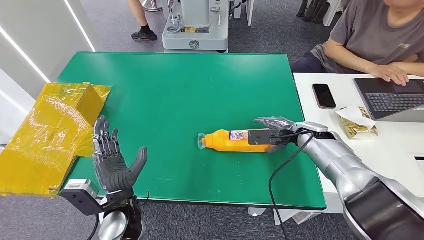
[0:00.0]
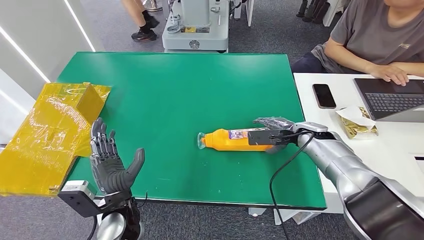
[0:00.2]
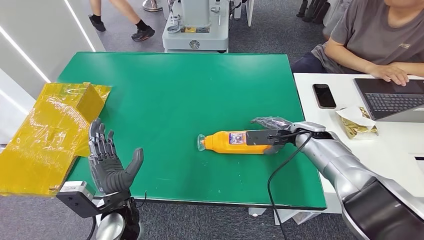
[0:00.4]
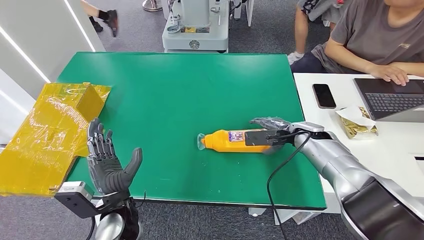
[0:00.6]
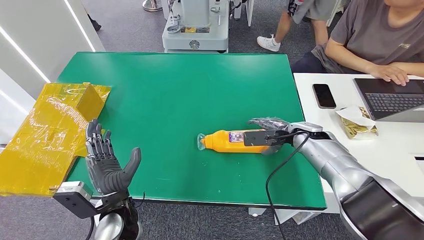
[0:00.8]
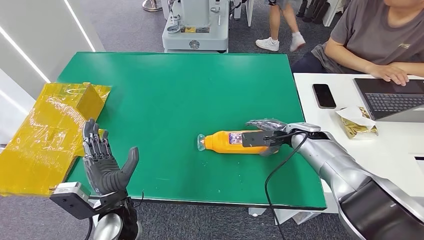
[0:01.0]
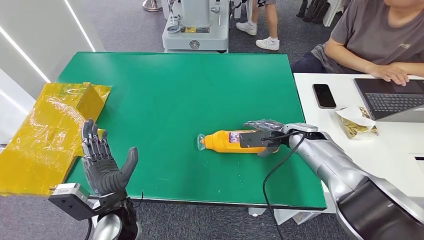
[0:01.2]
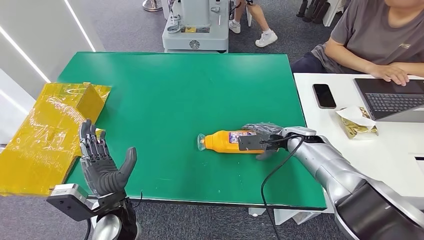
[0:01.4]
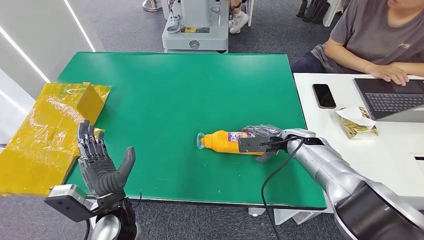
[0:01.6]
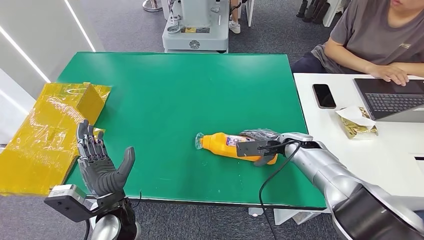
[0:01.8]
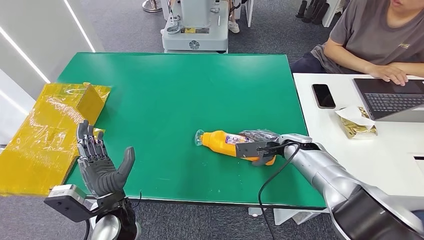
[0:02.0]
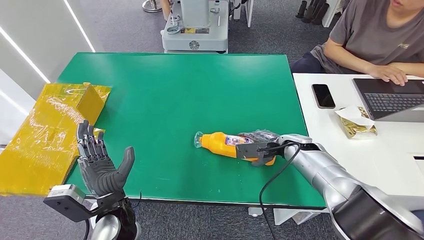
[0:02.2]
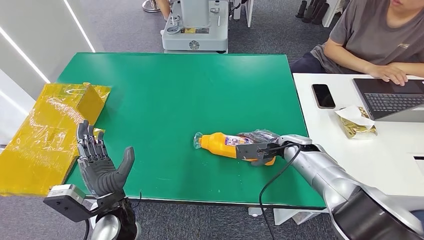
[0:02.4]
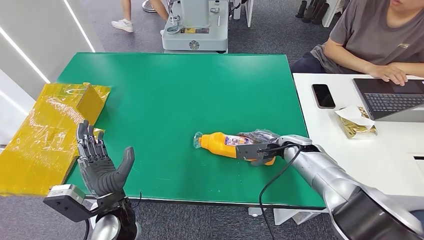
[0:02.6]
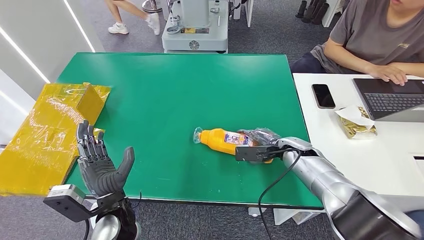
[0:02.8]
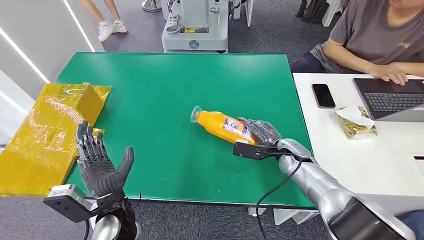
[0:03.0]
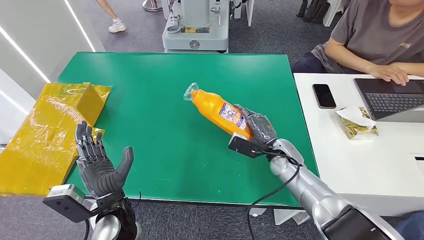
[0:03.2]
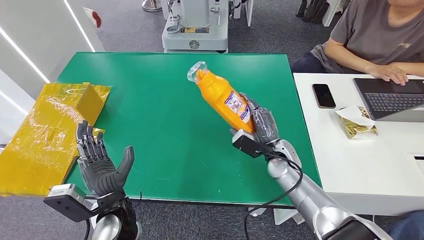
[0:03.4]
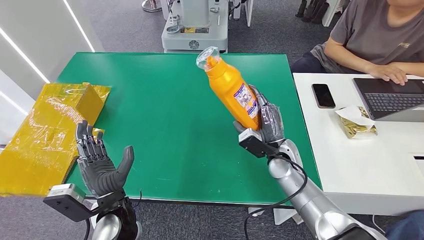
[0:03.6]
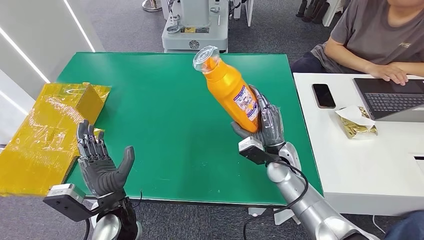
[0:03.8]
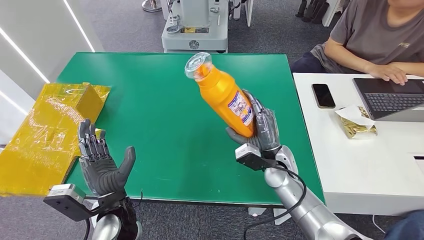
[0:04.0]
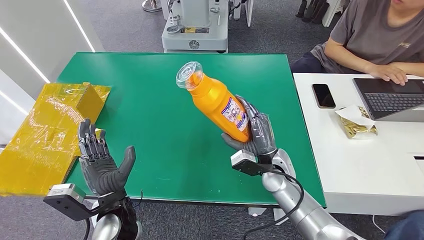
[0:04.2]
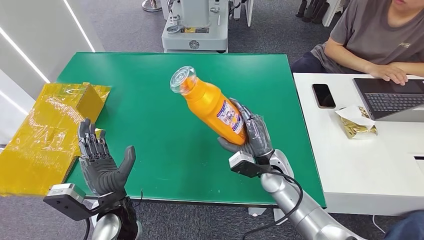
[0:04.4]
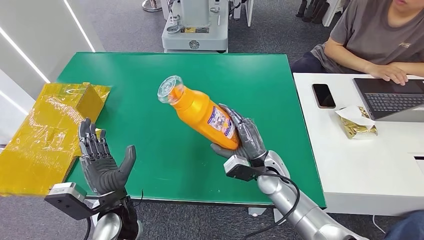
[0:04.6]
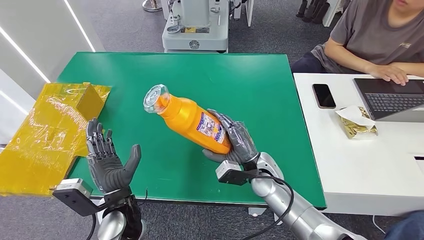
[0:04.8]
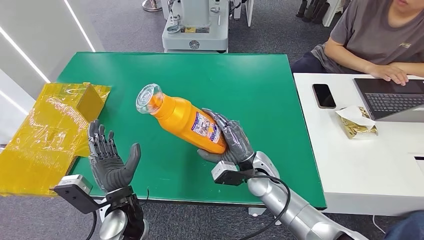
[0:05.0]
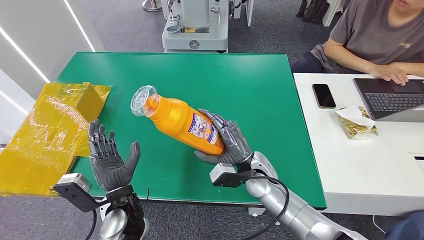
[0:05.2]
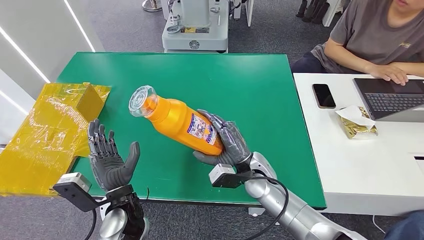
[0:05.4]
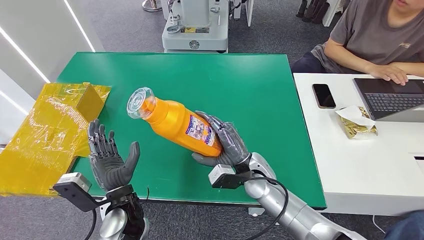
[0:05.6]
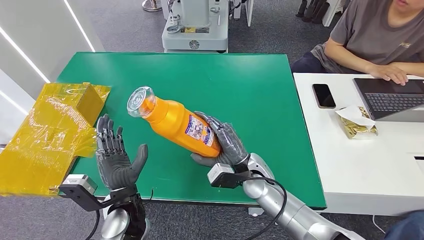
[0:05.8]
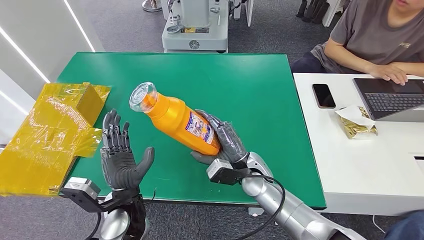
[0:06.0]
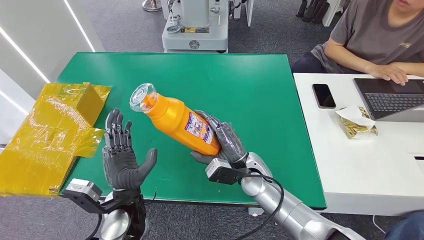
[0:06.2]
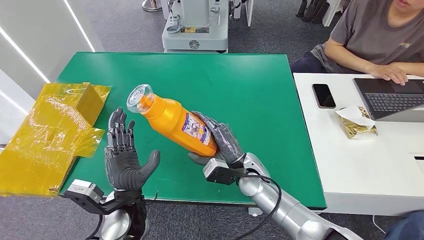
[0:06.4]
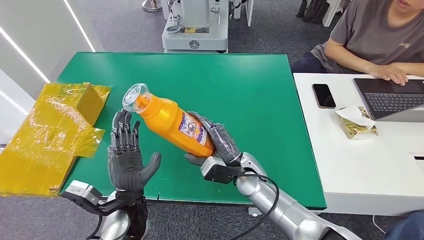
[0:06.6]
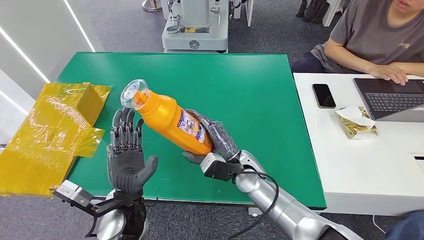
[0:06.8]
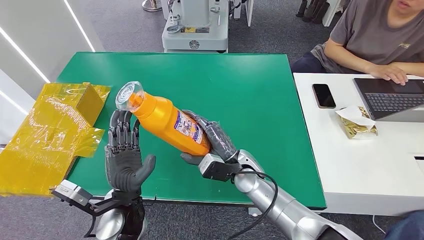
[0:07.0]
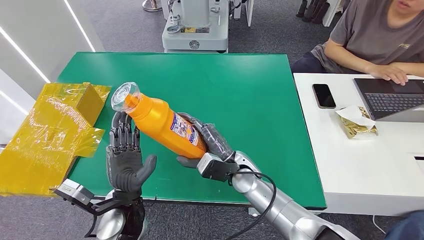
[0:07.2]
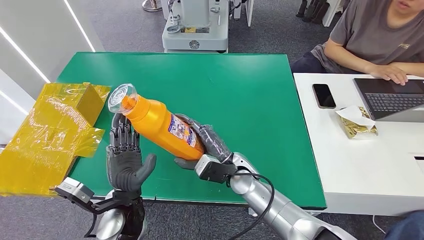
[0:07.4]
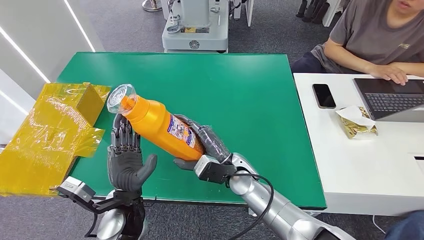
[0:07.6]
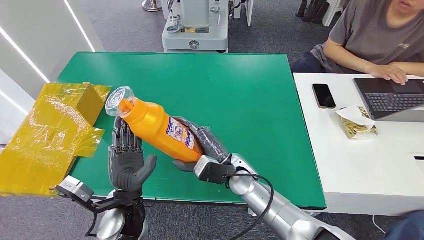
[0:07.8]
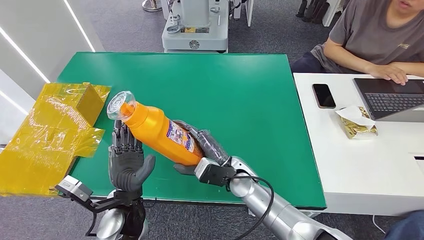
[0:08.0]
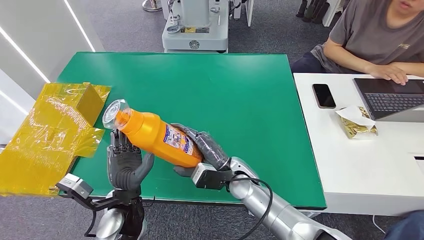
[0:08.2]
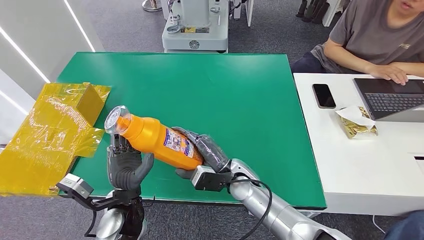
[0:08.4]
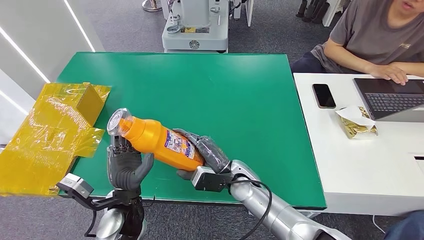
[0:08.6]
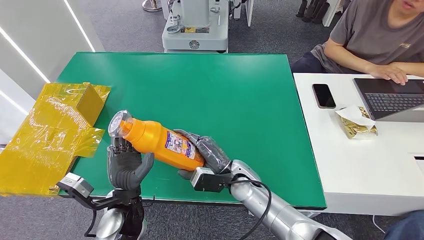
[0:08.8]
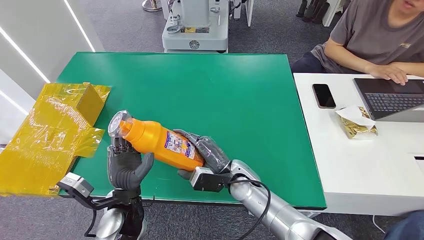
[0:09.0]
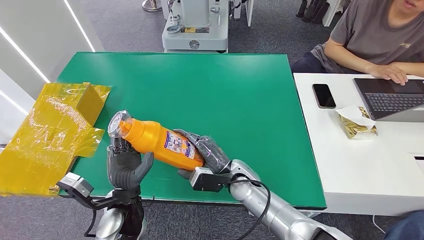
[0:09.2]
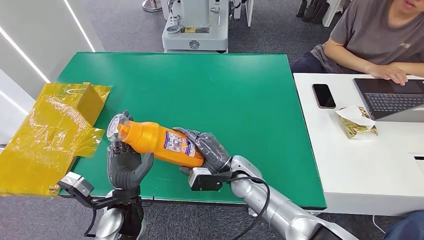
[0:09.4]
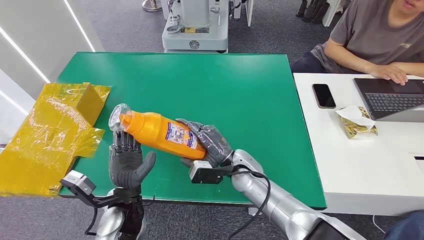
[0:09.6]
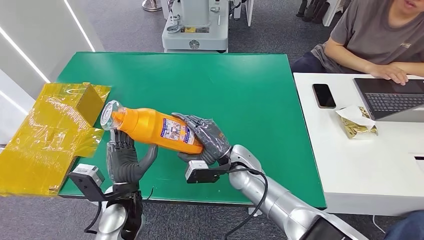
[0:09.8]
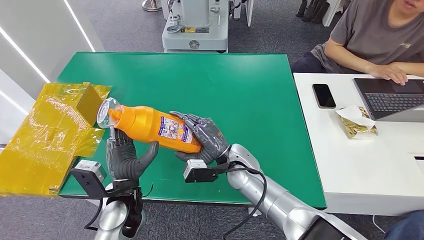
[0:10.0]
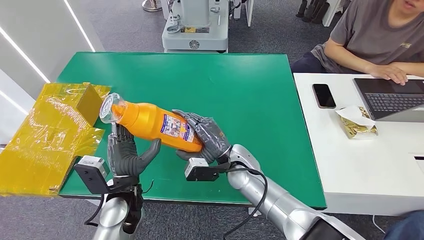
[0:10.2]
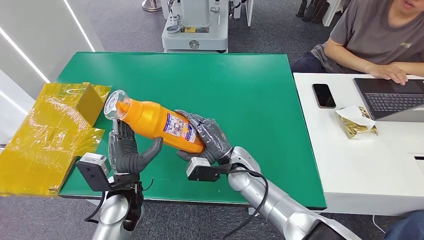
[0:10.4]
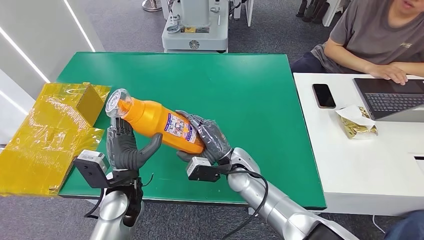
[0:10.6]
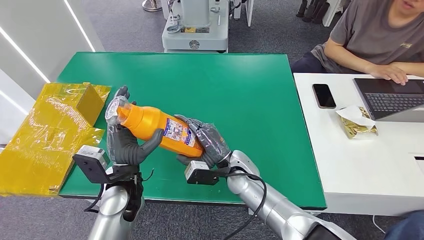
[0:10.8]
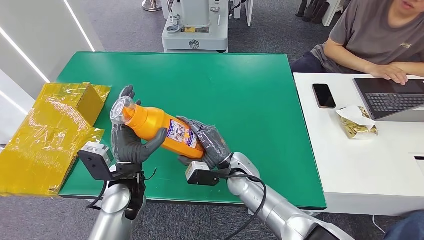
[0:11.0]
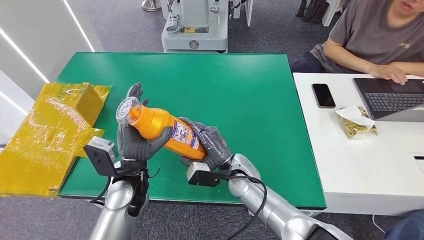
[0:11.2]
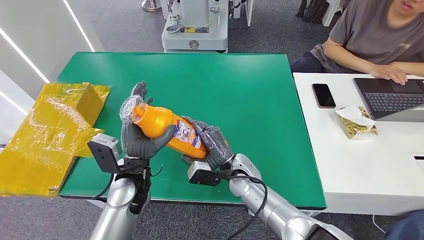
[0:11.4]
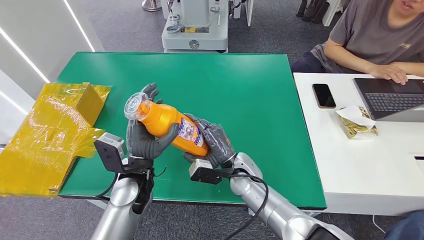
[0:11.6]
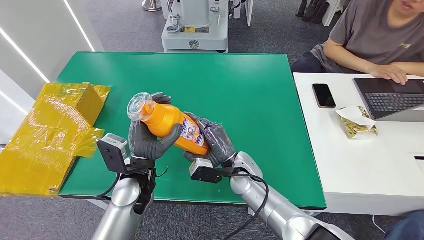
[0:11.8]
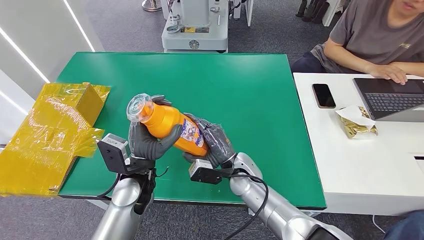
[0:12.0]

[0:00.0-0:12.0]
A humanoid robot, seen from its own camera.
Step, 0:00.0 to 0:04.0: Pick up the bottle from the table.
0:00.0 to 0:01.6: The hands move only a little.
0:01.6 to 0:03.0: The right hand ends up about 5 cm from where it was.
0:03.0 to 0:04.4: The right hand moves to the left and backward, some 10 cm.
0:04.4 to 0:06.0: The right hand travels to the left by approximately 5 cm.
0:06.0 to 0:10.4: The hands make only small movements.
0:10.4 to 0:12.0: There are only small adjustments of the hands.

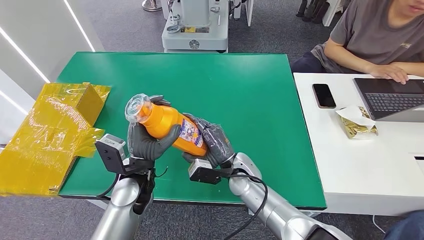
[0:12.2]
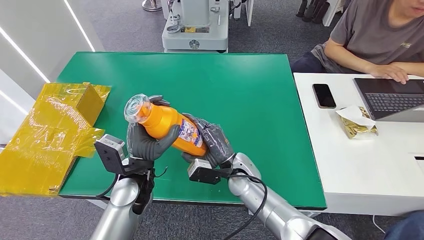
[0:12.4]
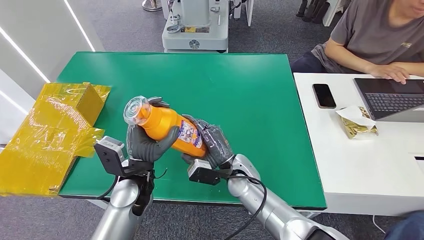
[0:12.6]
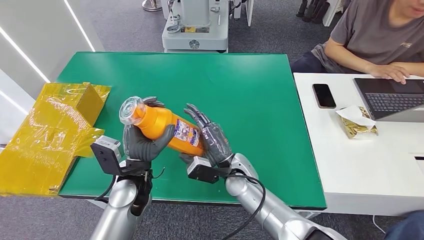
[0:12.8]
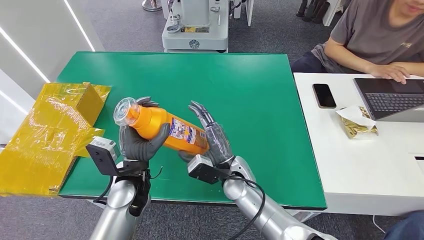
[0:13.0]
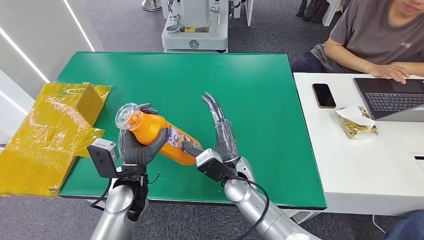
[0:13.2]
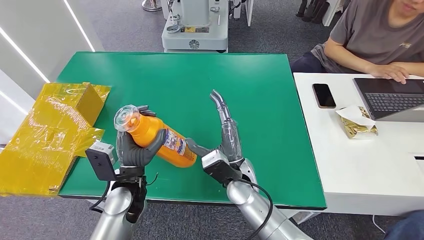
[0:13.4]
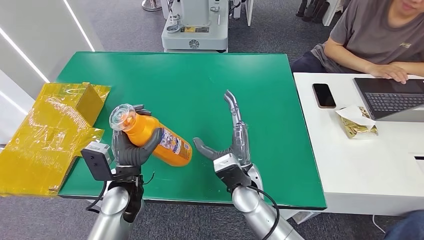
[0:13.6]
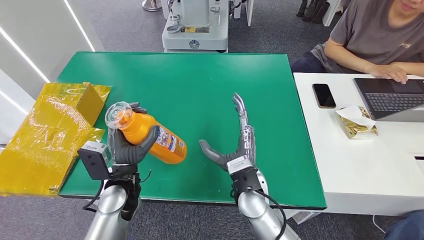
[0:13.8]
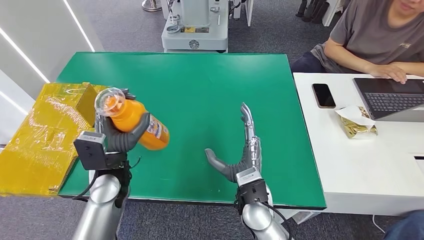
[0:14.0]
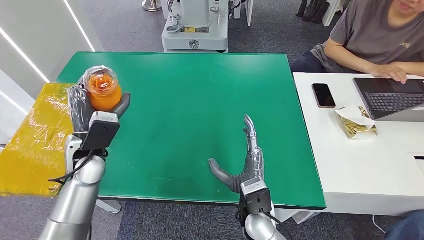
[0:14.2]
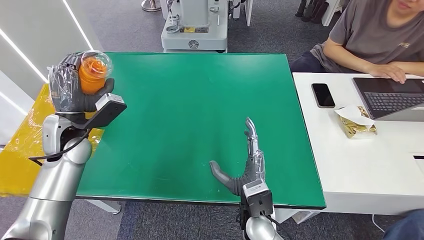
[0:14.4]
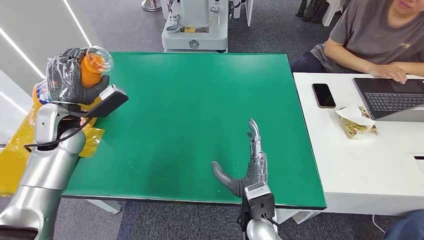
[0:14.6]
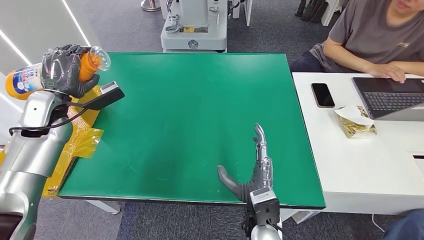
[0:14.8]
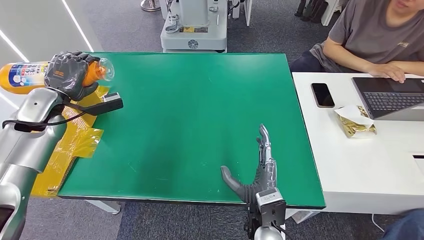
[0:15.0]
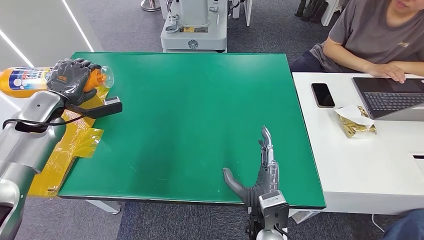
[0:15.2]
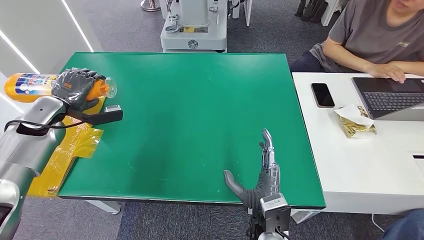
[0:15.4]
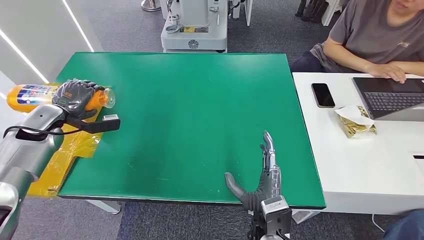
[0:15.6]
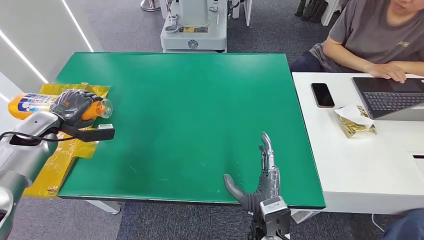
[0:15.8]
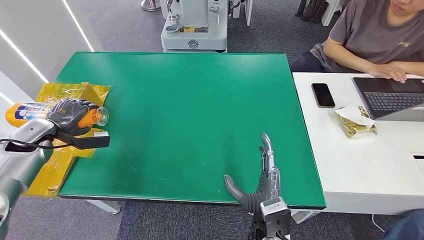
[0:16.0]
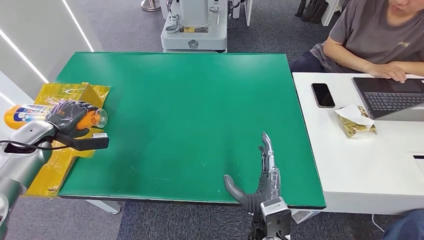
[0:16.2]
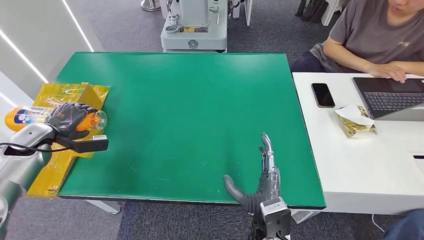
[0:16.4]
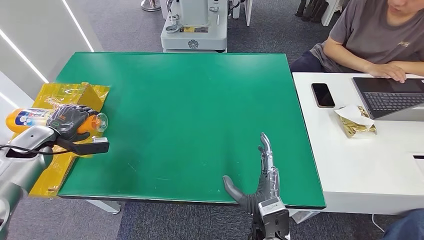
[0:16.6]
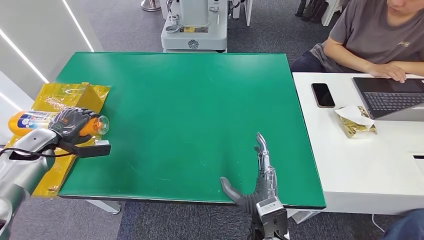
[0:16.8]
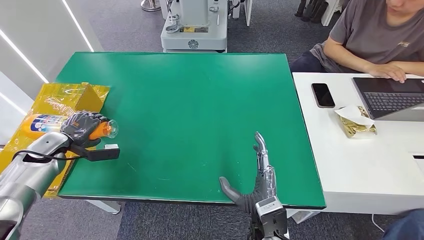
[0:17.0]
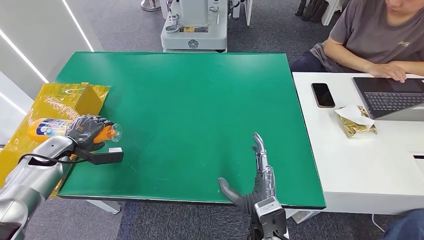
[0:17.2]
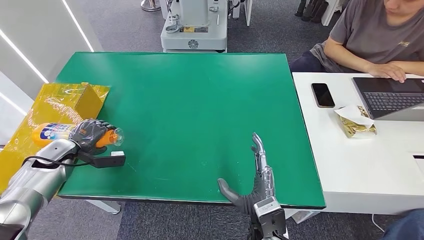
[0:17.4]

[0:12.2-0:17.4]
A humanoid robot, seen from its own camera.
0:12.2 to 0:14.0: The right hand travels backward by approximately 10 cm, while the left hand moves to the left, some 5 cm.
0:15.6 to 0:17.4: The left hand is displaced downward and backward by roughly 10 cm.
